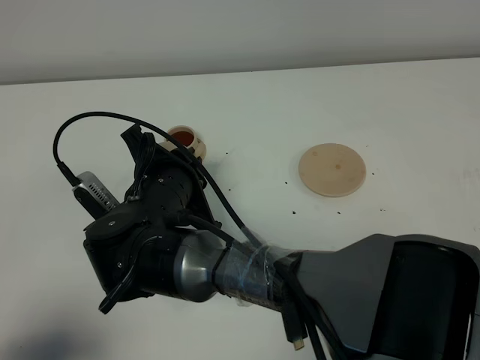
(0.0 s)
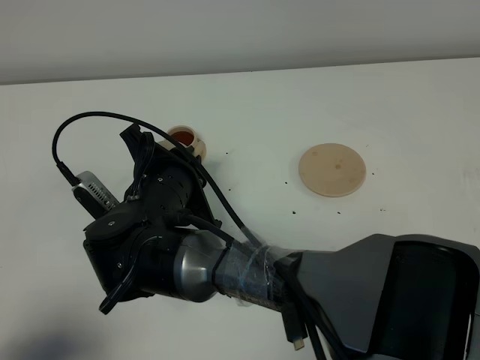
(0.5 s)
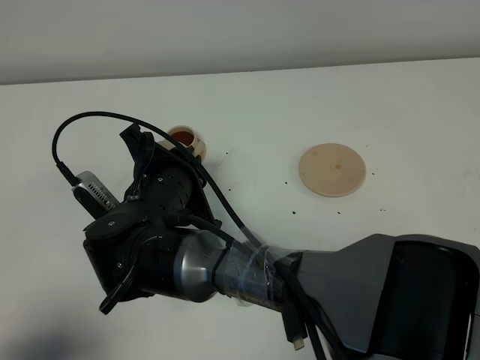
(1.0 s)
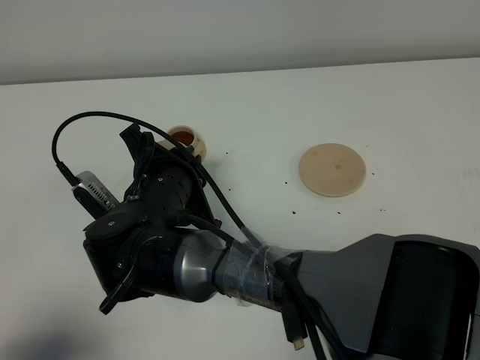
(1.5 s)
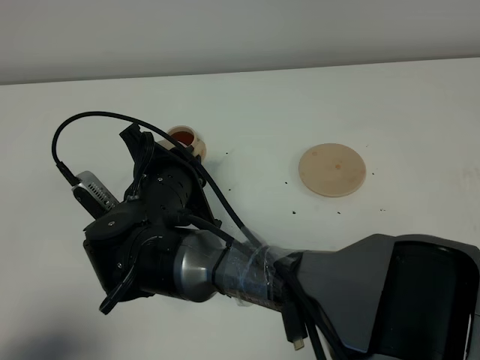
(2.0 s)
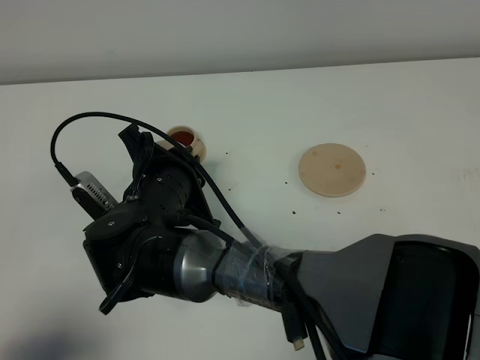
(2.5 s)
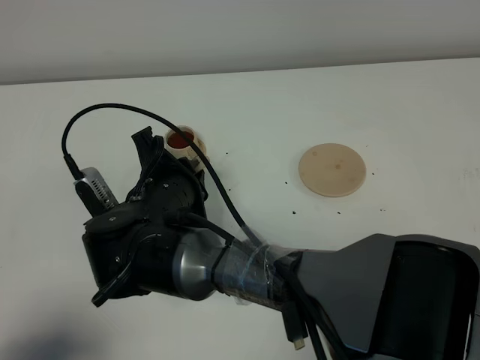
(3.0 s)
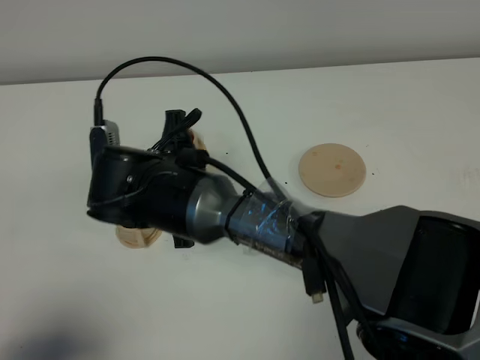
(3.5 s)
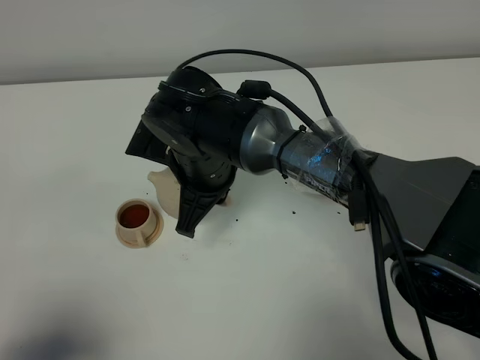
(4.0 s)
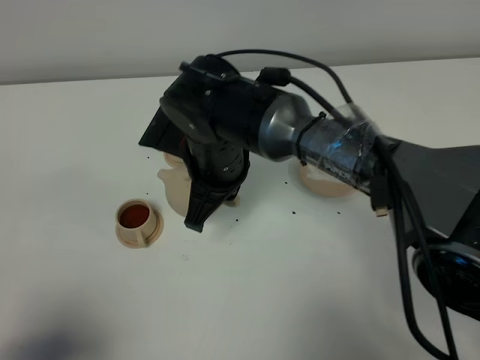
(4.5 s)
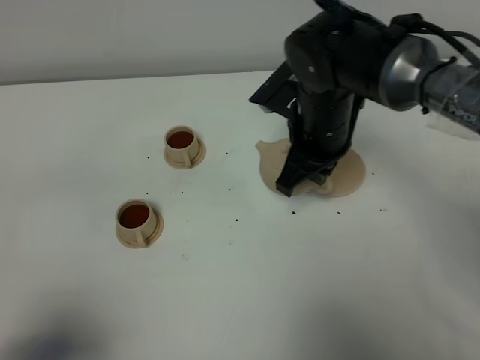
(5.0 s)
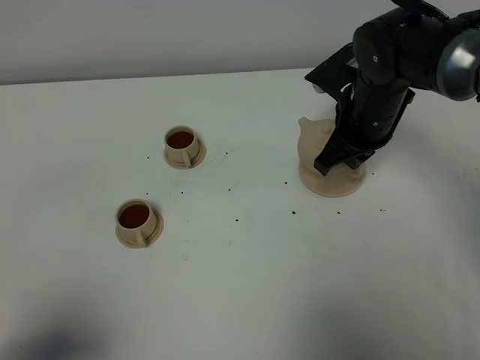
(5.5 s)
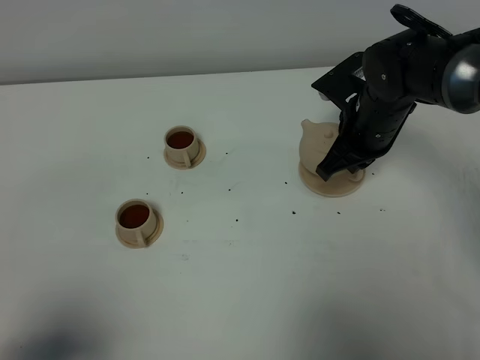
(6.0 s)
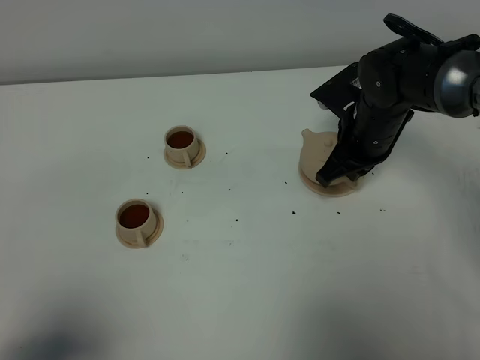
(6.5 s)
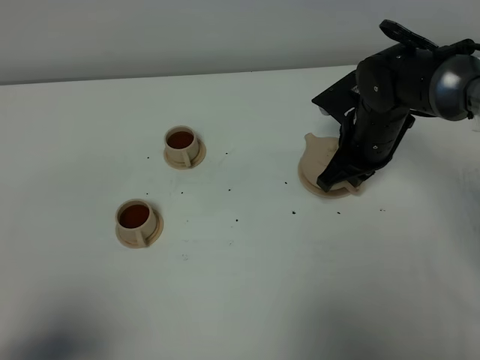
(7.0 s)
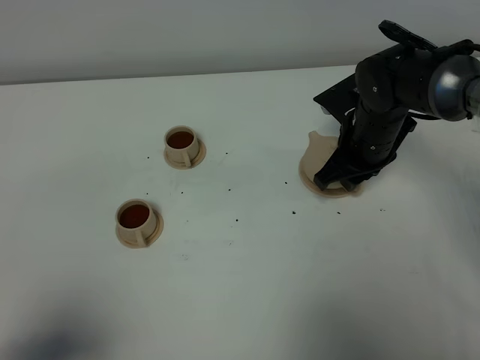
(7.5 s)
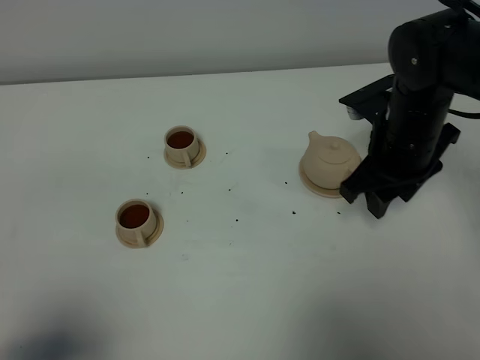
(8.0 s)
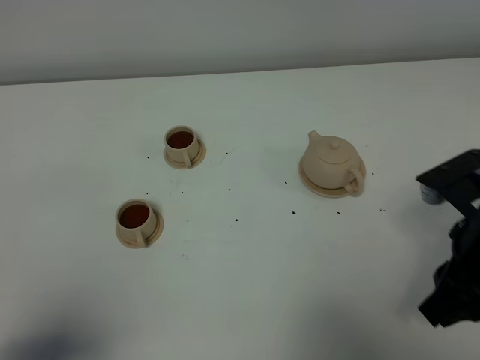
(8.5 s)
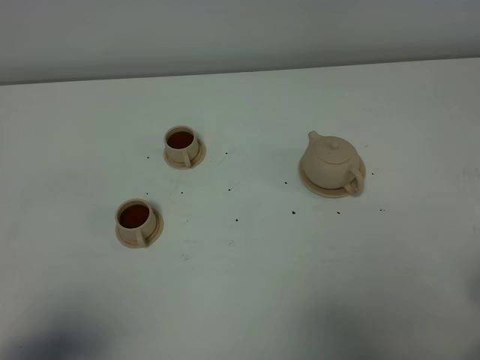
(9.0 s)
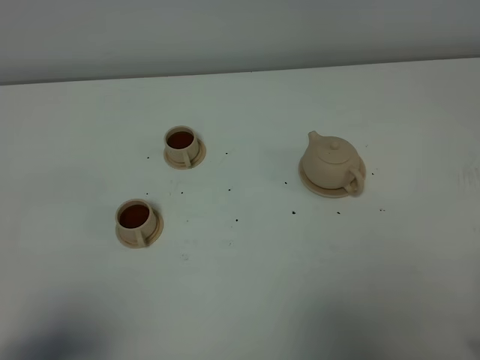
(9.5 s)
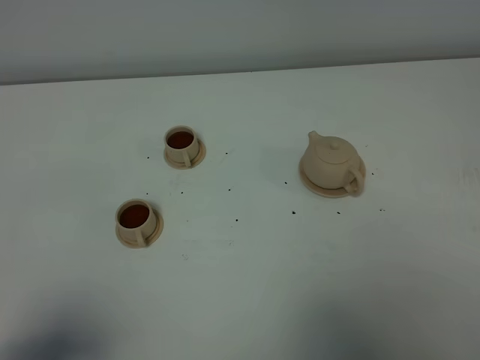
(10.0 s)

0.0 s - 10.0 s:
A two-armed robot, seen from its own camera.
Task of the whole recording: grasp the brown teapot and pour the tea into the two brown teacups one by one, put the brown teapot back in its original place.
Step, 0.0 s - 3.5 s: Pour tea into the teacup with the right gripper.
0.0 s - 2.0 s: The two grippers keep their place.
2.0 s - 4.0 s: The right gripper goes about 5 cm forward.
4.0 s - 6.0 s: The right gripper moves to the right and forward, approximately 20 cm.
6.0 s - 8.0 s: The right gripper moves backward, about 5 cm, and opens.
8.0 s - 10.0 s: The right gripper is displaced backward and to the right by about 35 cm.
